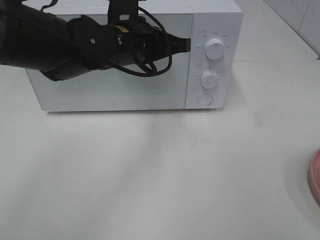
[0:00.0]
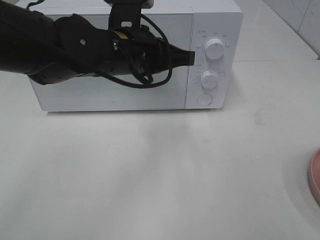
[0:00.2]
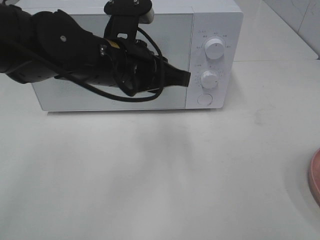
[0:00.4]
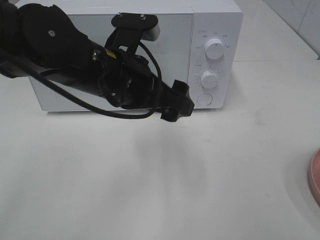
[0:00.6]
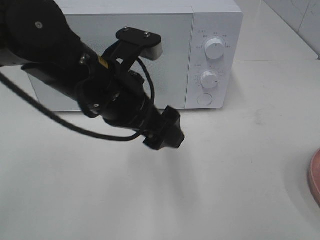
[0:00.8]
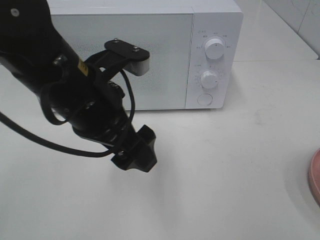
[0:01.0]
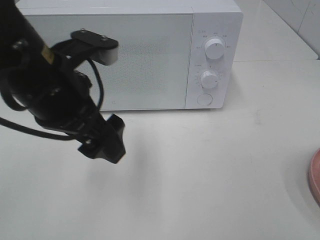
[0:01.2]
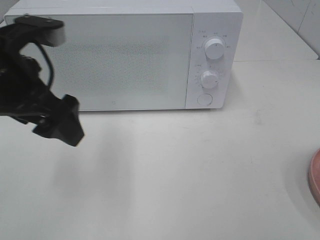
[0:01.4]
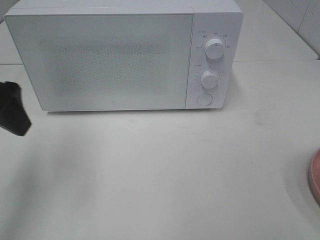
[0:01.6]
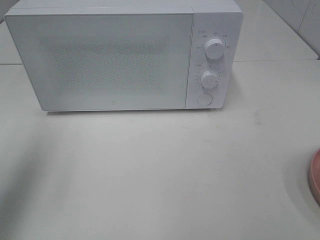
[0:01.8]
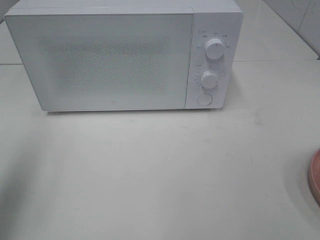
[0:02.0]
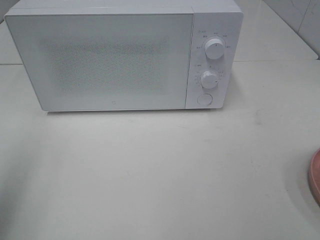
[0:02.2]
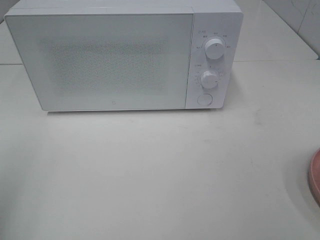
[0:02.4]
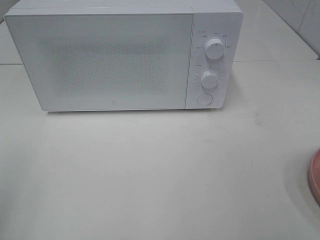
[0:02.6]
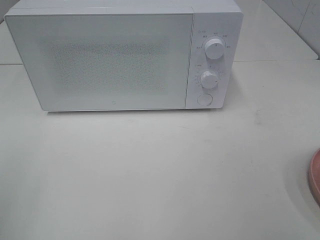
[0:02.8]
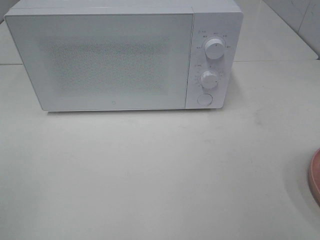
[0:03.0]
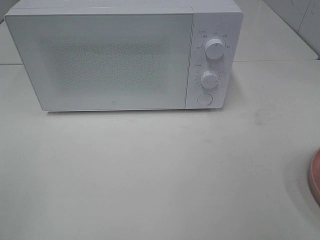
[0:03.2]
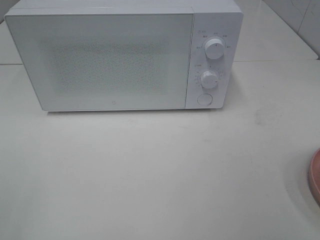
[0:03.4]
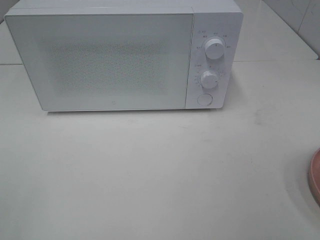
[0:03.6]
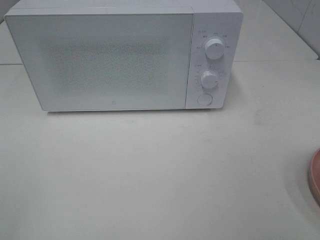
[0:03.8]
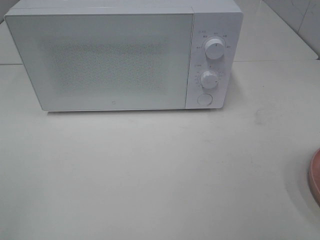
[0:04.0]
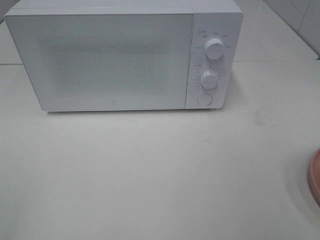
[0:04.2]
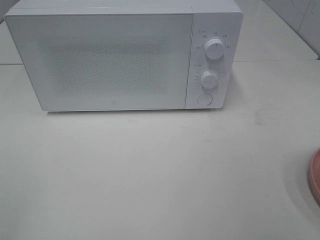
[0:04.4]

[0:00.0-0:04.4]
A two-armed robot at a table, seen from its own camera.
Task of the whole recording: Heat the burger.
0.0 to 1.4 s: The left gripper heads to the left and backward, covering roughly 15 cm, and opens up.
1.4 to 3.0 s: The left gripper moves backward and to the left, some 25 cm.

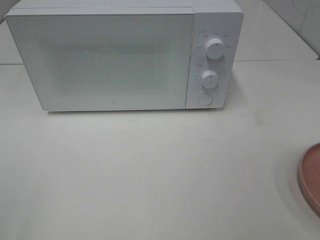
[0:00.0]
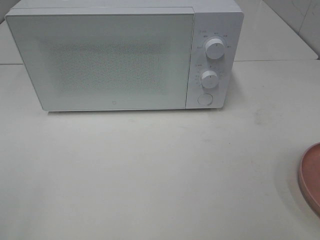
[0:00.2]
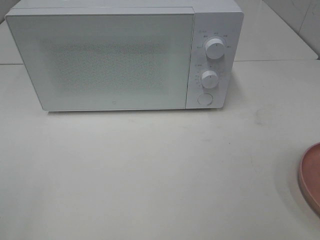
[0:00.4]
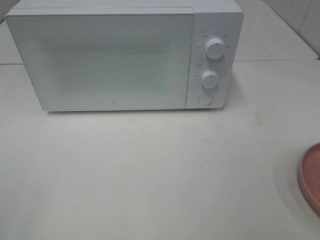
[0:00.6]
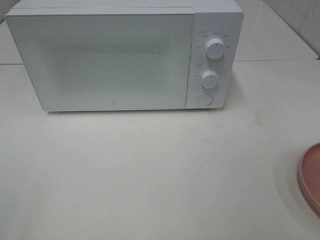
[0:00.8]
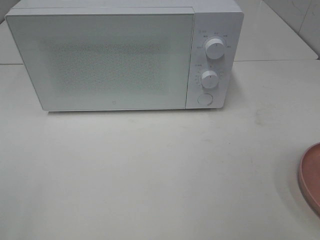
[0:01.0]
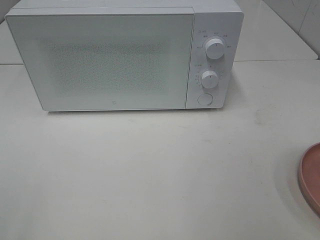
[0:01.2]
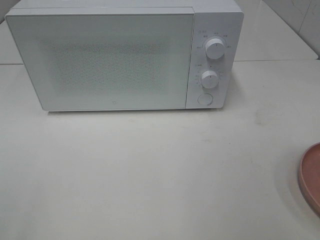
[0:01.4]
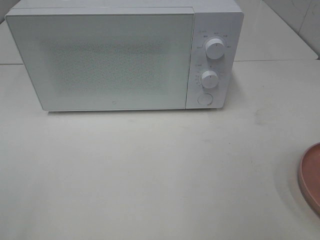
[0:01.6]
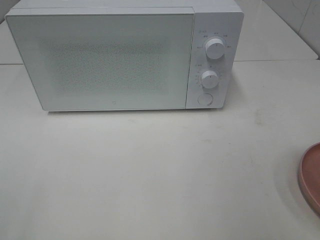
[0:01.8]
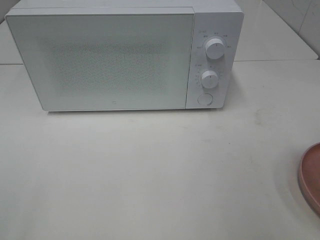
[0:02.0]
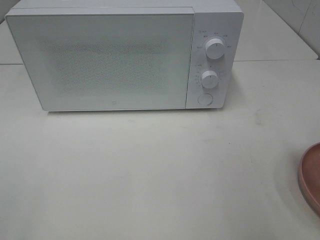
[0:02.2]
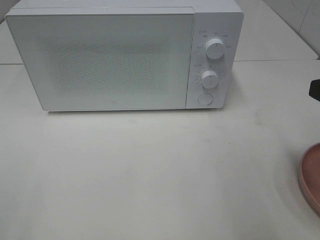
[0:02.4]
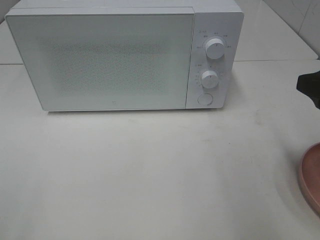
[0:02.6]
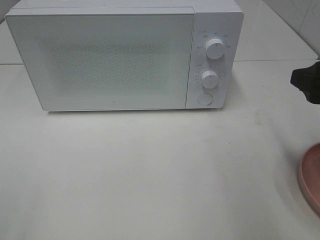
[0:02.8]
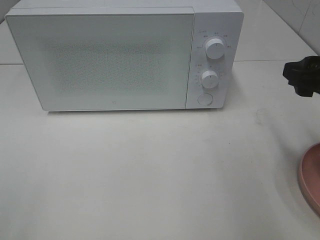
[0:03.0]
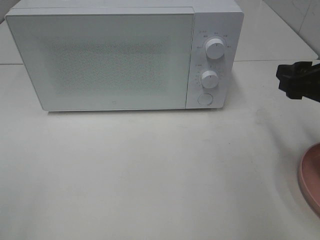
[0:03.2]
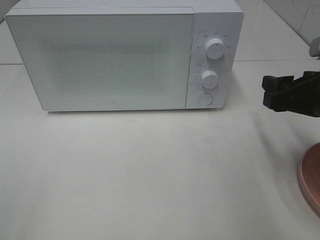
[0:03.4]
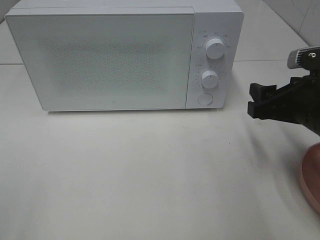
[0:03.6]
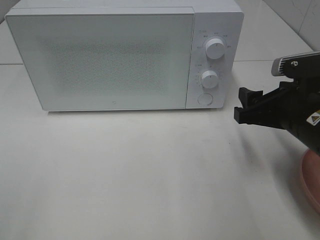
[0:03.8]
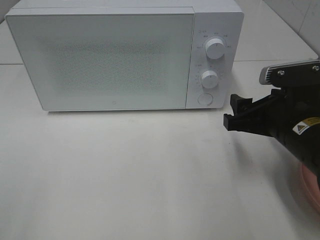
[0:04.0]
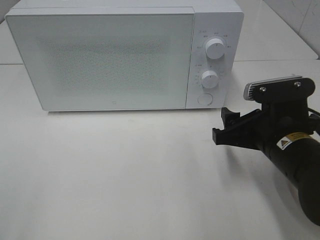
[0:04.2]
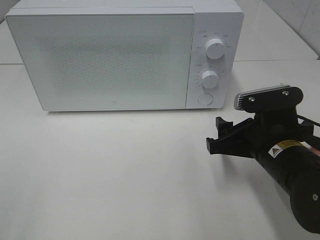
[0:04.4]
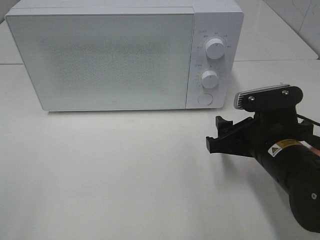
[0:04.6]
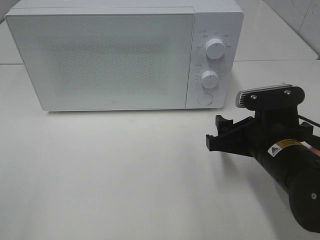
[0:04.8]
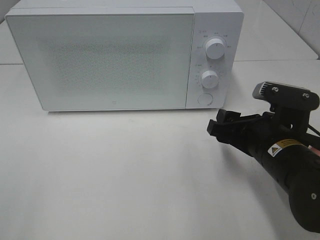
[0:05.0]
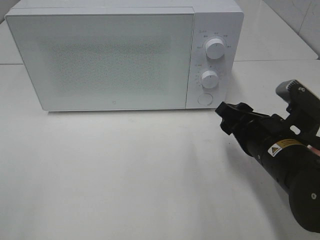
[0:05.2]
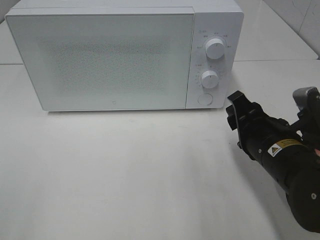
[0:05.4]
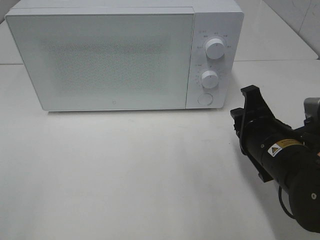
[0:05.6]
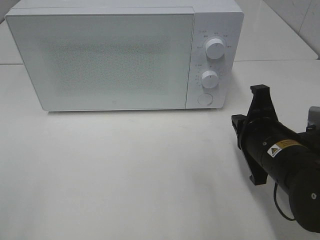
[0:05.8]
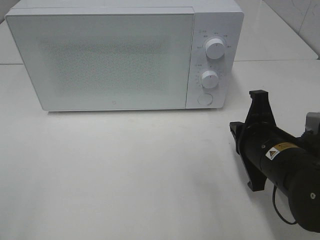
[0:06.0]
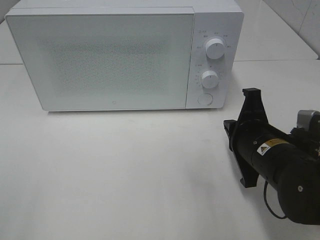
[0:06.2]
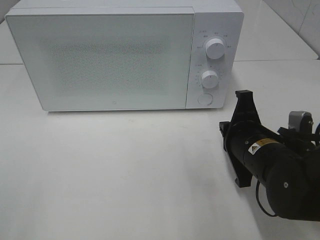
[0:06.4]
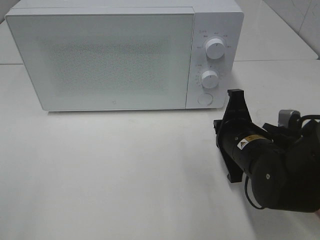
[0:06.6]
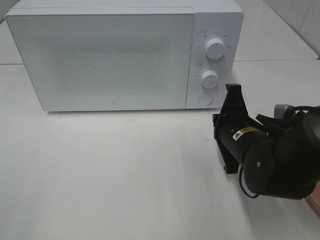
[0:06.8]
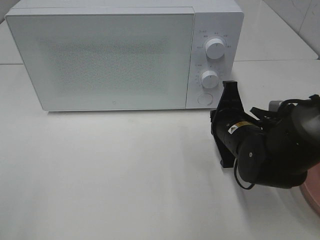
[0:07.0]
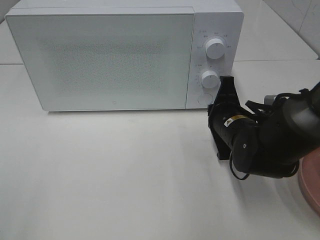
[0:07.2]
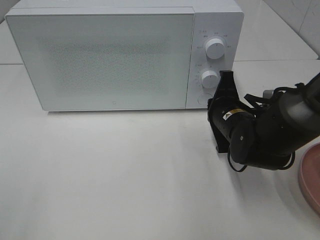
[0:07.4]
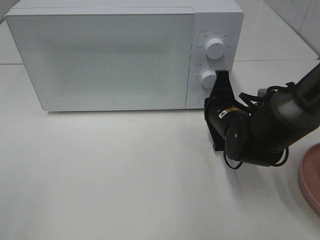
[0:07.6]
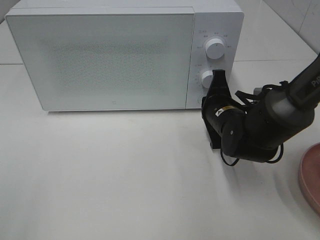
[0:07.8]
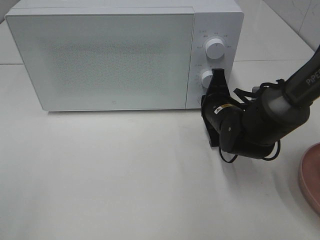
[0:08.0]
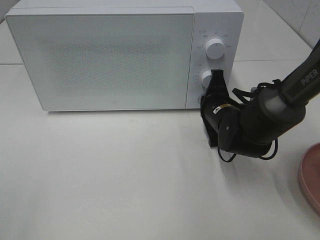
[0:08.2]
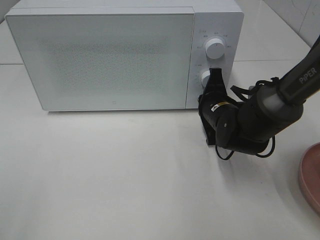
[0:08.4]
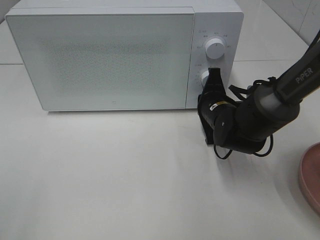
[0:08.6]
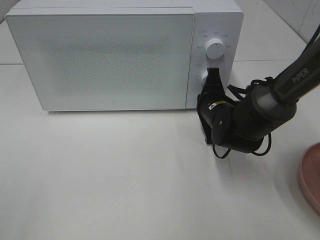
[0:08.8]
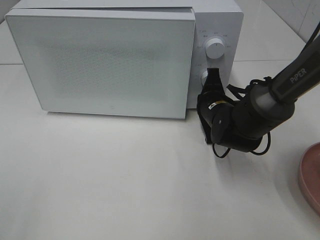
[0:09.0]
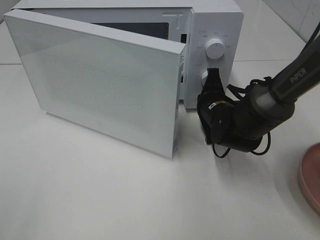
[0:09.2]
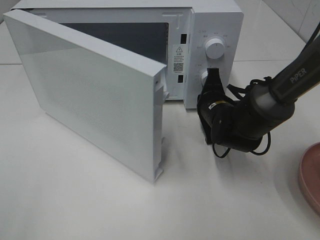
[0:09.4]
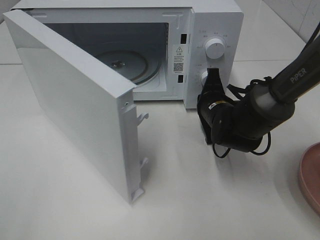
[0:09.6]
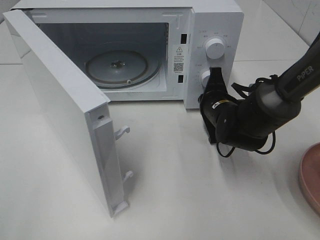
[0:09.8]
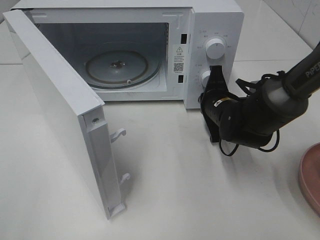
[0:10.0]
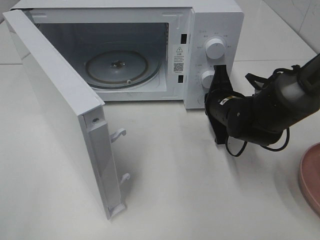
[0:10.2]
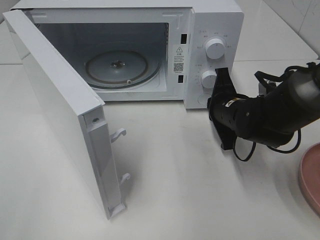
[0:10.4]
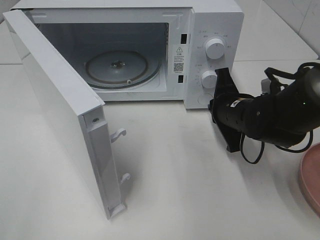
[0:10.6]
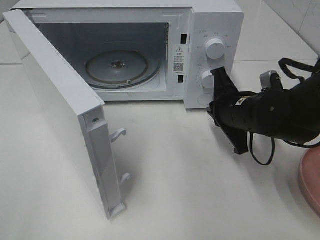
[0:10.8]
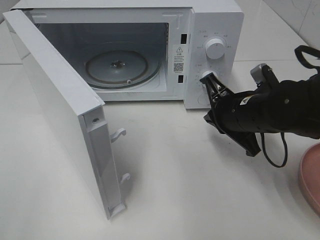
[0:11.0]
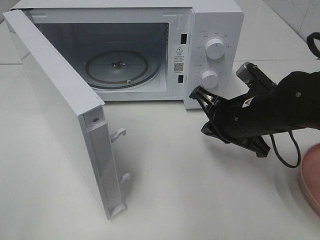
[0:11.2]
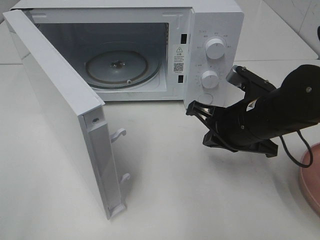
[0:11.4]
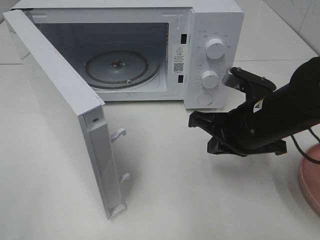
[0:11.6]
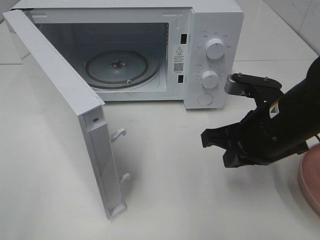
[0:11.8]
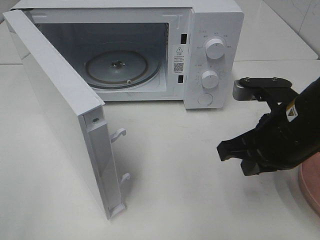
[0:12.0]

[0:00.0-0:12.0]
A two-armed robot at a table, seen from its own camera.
Task of the whole recording: Heat the burger.
Step, 0.0 to 10.2 s: Right hand: press the switch.
1.6 to 3.0 s: The right gripper goes some 15 cm forward and downward.
3.0 to 4.4 s: The right gripper shifts about 15 cm downward and to the left.
4.4 to 6.0 s: The right gripper closes its fingers.
6.0 to 7.6 s: The right gripper shifts about 10 cm forward.
7.6 to 9.0 s: The grippers make only small movements.
10.4 to 12.0 s: The right gripper heads backward and upward, covering approximately 15 cm.

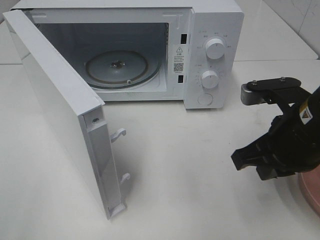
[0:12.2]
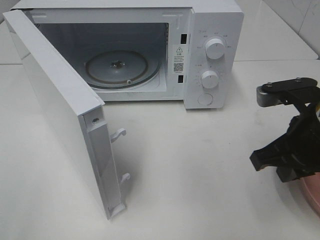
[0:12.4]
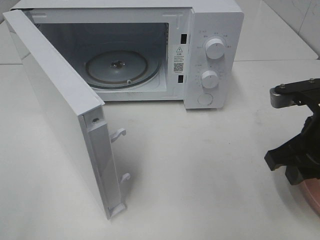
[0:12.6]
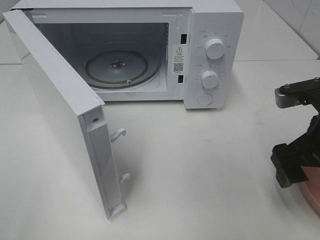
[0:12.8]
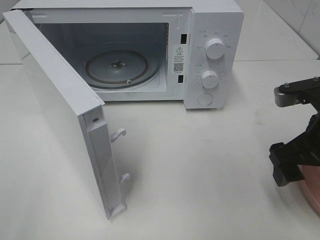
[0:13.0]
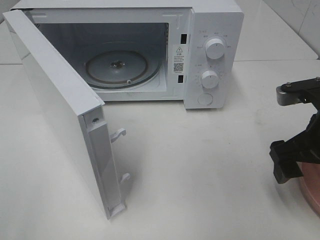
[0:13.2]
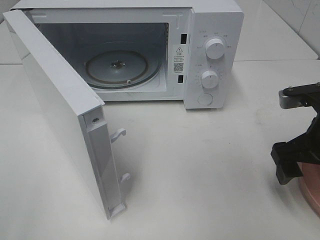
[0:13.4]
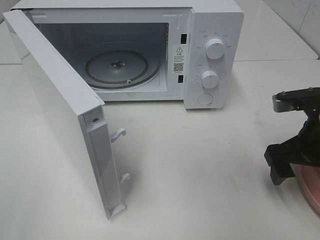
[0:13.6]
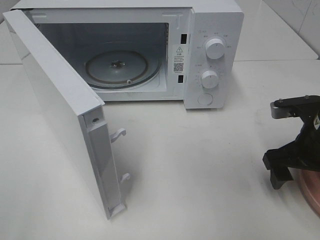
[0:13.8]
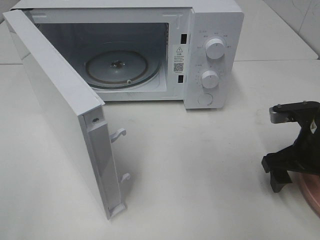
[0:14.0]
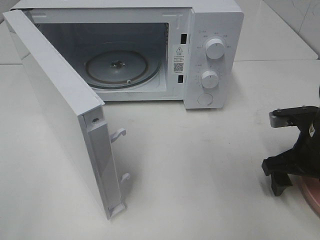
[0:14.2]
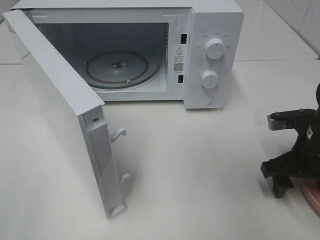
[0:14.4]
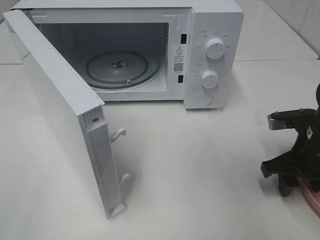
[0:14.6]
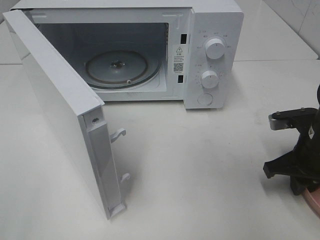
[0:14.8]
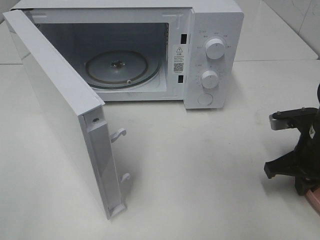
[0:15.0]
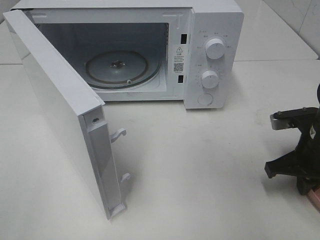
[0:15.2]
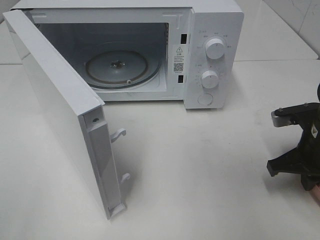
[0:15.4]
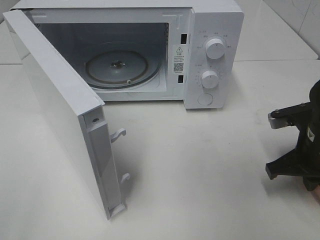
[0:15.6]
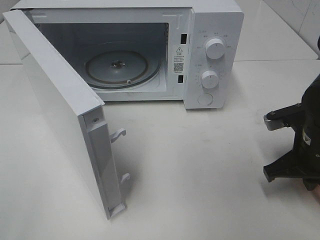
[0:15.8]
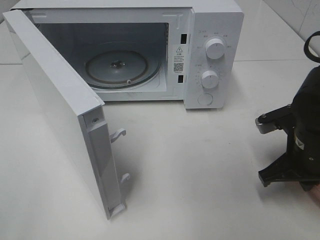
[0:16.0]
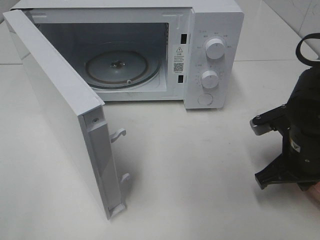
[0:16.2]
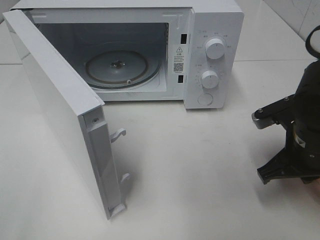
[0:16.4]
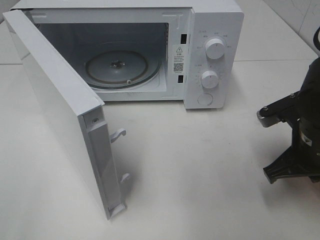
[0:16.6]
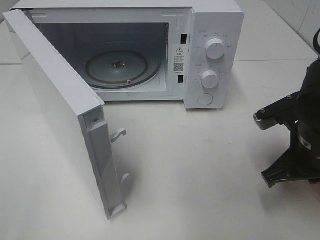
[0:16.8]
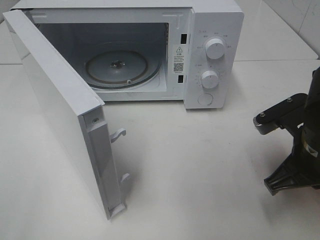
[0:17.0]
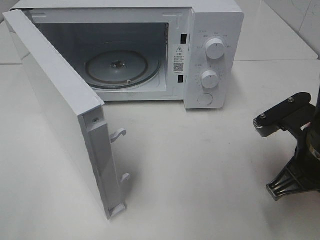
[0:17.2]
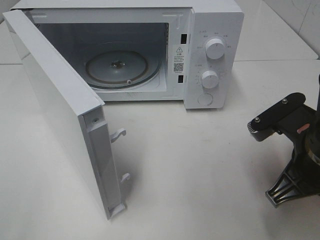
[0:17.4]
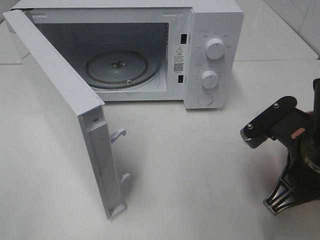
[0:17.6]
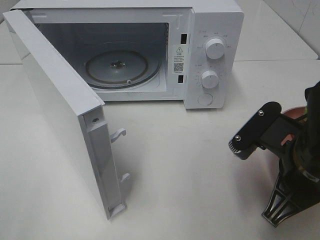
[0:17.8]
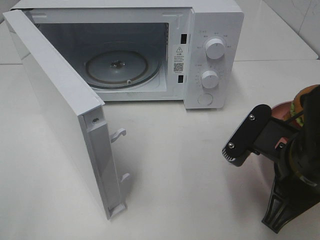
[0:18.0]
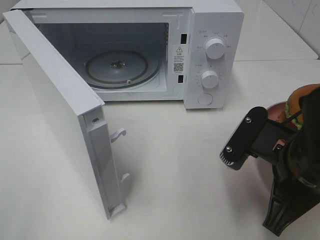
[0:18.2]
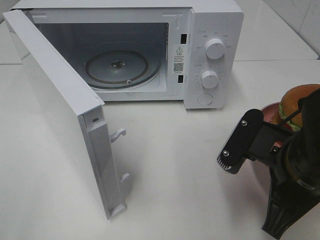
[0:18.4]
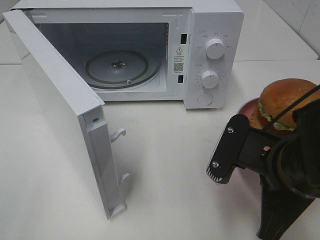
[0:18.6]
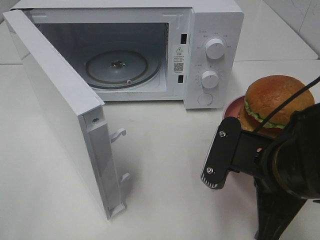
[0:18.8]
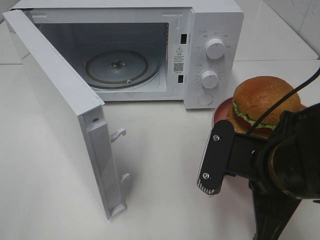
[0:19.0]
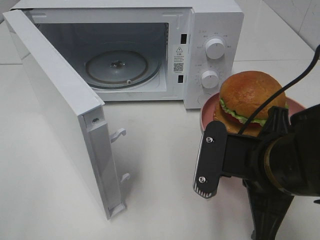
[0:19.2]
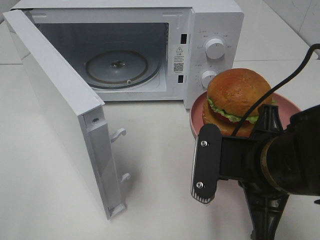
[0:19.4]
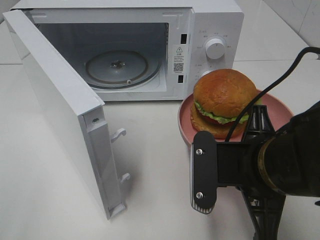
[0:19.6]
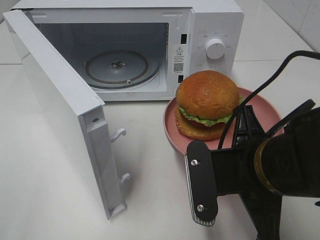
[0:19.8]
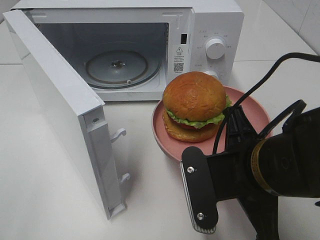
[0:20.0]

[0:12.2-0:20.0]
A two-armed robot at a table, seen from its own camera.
Task of the whole recording: Heat the burger.
Step, 12.2 to 15.2 s: Right hand: grab the plate with the hamburger.
12.2 to 13.8 s: The right gripper goes approximately 10 cm to the right and downward, and opens.
13.8 to 15.4 s: The right gripper closes up.
15.4 to 16.8 s: The right gripper moves some 5 cm.
16.8 to 18.4 s: The right gripper travels backward and to the left by roughly 10 cm.
